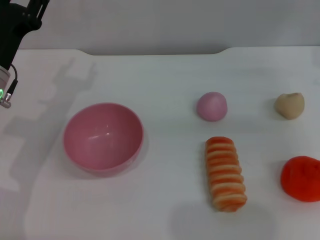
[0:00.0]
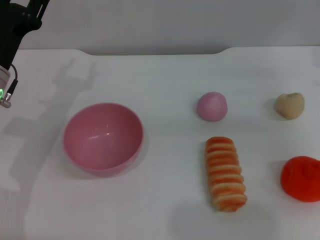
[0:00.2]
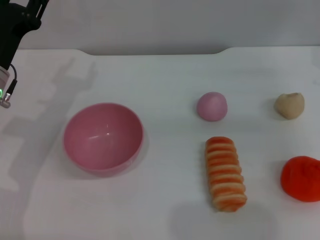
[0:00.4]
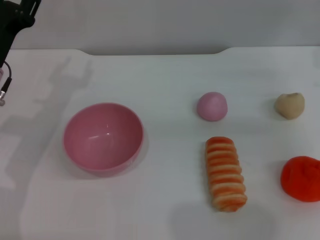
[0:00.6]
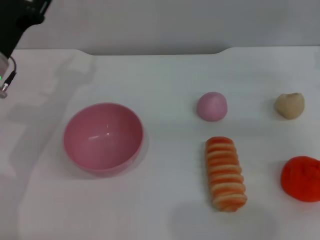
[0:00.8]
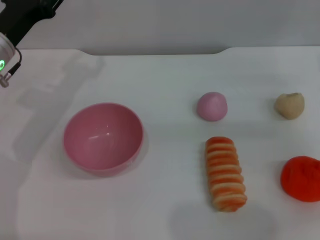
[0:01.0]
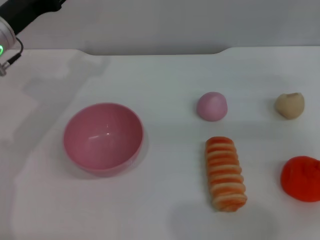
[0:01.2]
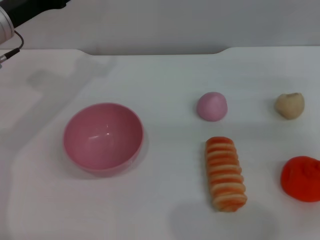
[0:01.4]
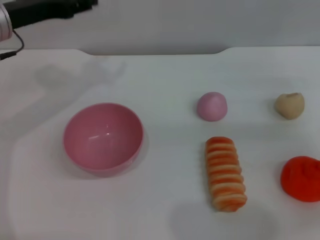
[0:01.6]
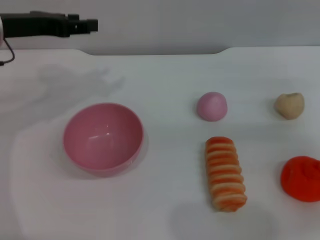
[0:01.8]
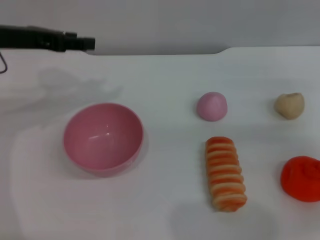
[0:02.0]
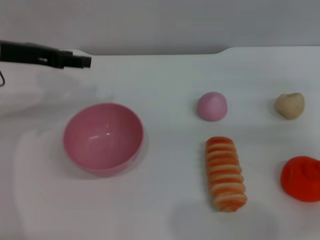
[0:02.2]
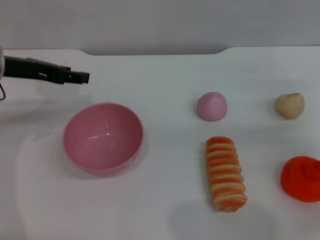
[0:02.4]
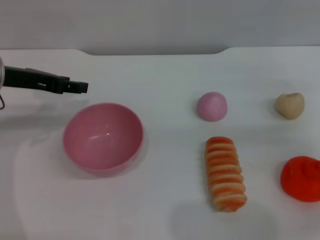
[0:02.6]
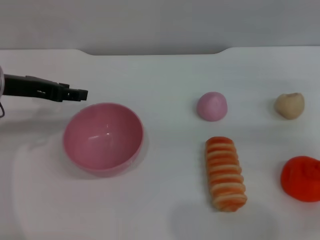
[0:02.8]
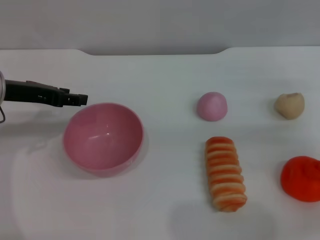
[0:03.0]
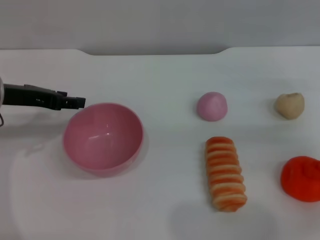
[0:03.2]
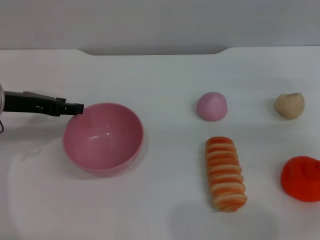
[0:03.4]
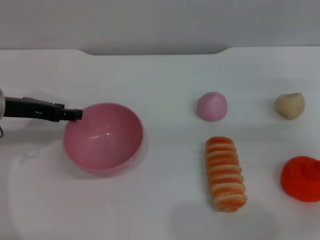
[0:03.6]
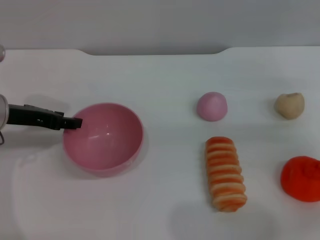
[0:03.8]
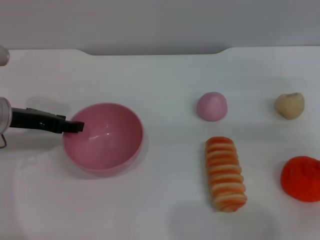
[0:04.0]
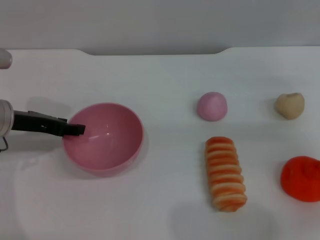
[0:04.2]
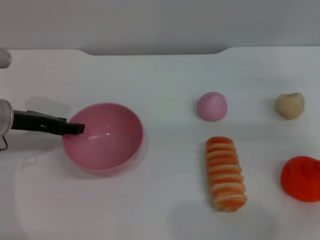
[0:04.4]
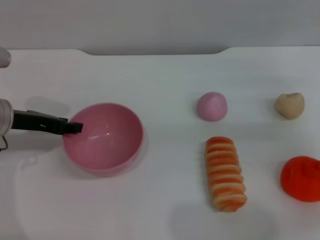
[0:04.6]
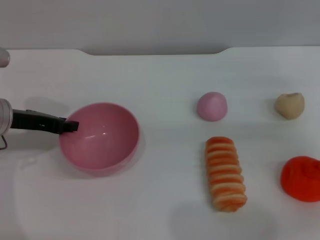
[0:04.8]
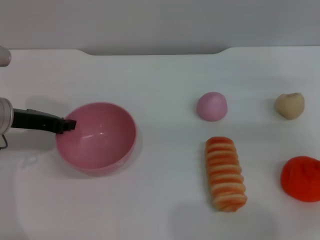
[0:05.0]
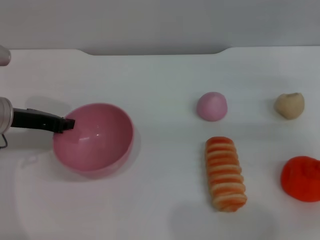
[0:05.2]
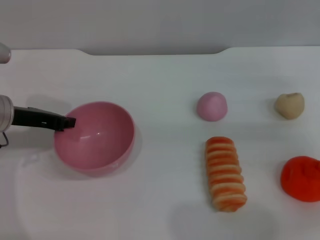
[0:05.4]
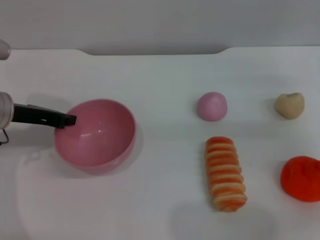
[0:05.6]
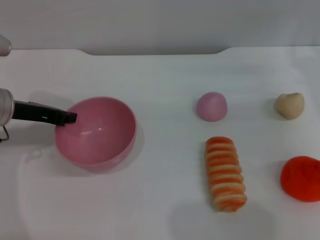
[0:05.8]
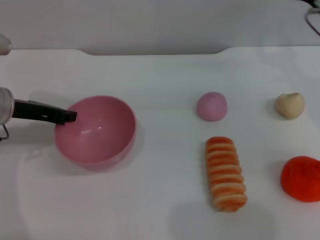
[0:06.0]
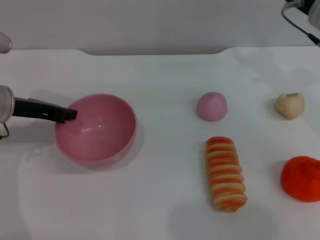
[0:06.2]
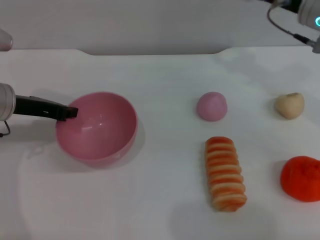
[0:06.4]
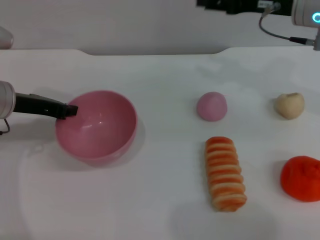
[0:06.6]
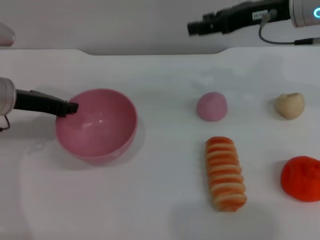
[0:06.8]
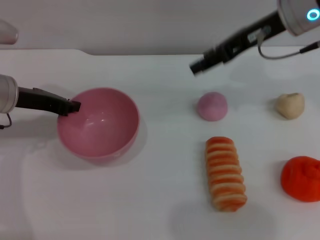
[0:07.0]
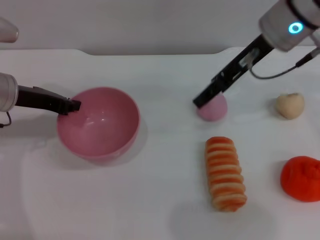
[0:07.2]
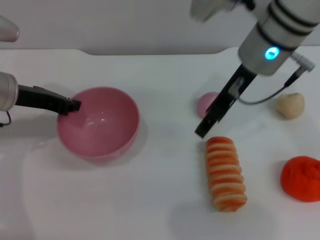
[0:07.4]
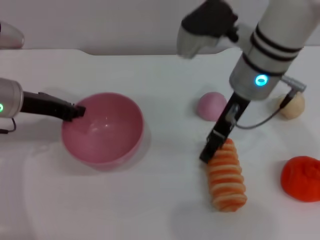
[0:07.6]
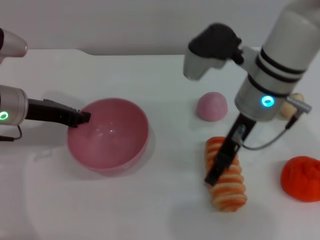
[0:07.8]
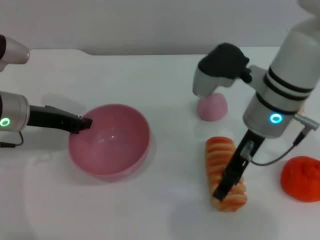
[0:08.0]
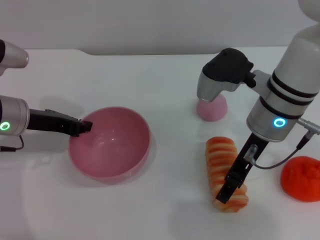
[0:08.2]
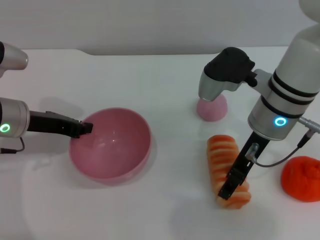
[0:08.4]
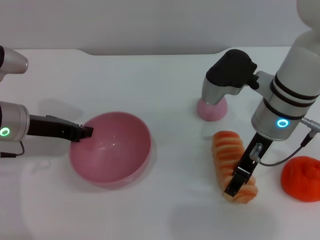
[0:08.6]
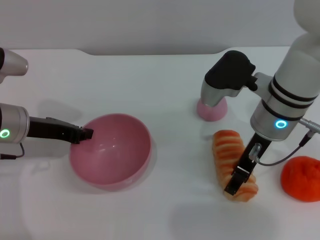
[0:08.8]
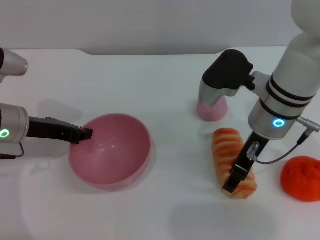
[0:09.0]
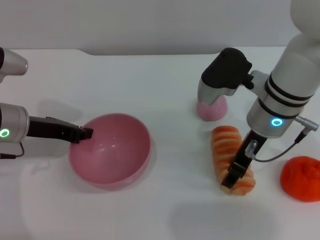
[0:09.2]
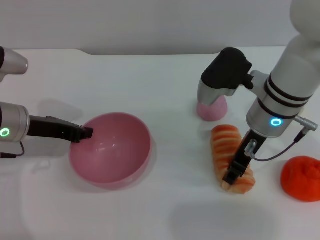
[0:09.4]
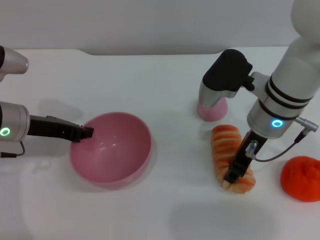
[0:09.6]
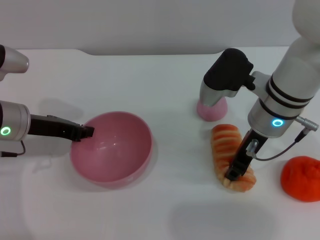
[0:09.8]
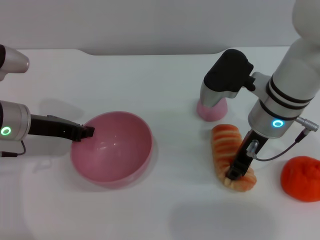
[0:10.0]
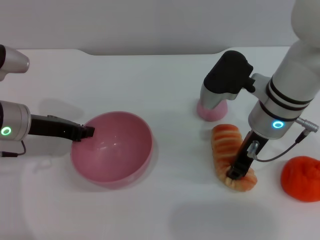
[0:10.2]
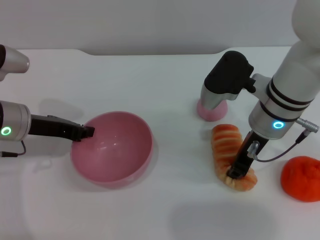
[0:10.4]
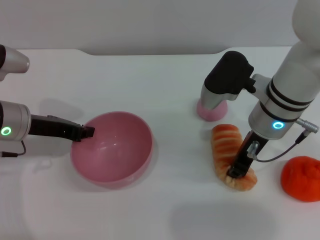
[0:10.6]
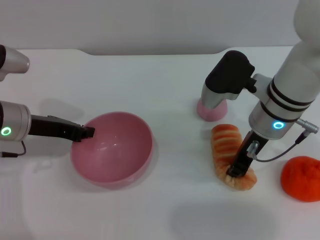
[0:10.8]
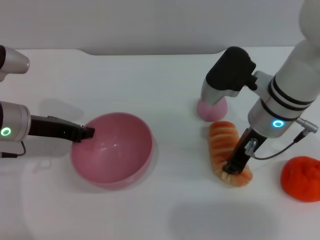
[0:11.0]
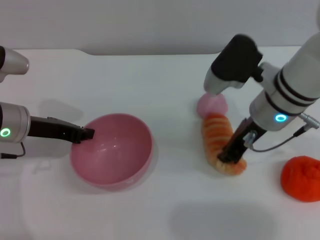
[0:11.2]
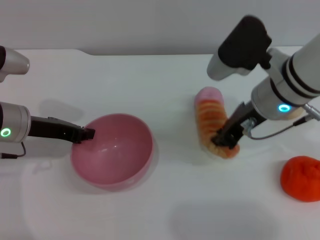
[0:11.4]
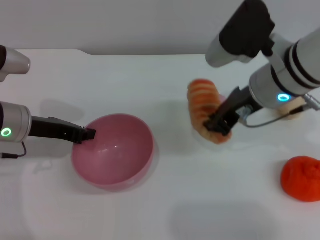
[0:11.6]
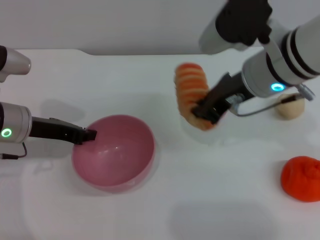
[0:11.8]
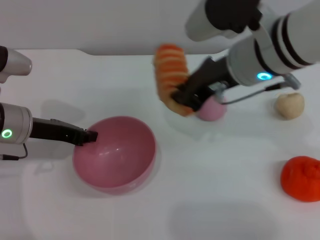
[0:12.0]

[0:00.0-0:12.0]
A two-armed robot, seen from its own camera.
Task of the whole recording: put the bread into the pink bowl and pour it out repeatedly.
Step, 0.0 to 6.0 s: Pick up the bowl with the left gripper.
Step, 6.2 to 11.6 s: Pick up the bread with the right gripper.
0.0 to 1.6 s: The left gripper moves upward and forward, about 10 cm.
1.6 to 3.0 s: The left gripper shifts by about 5 cm.
3.0 to 4.4 s: The grippers move only a little.
4.4 to 6.0 s: The left gripper closes. Meanwhile the right gripper goes about 10 cm to the left, forward and upward.
6.0 to 7.6 s: The right gripper moves to the left, some 15 cm.
7.6 to 9.0 s: The right gripper goes some 5 cm downward.
9.0 to 10.4 s: The right gripper closes.
10.4 to 12.0 s: The right gripper moves upward, about 10 cm.

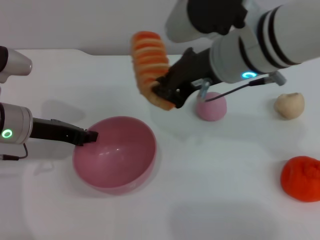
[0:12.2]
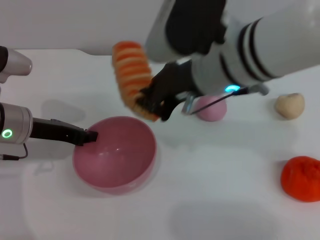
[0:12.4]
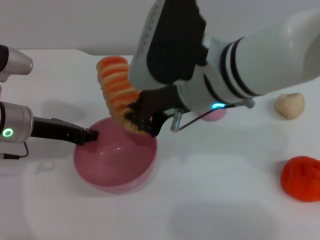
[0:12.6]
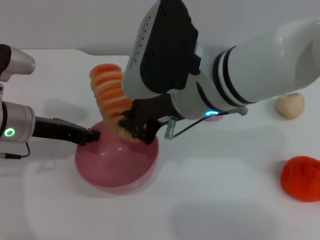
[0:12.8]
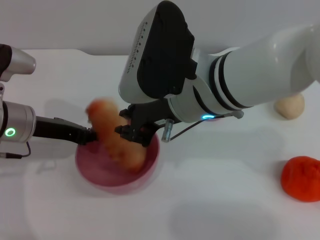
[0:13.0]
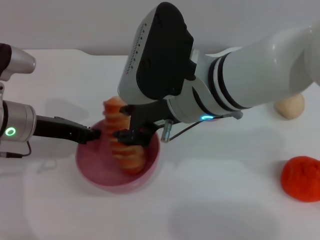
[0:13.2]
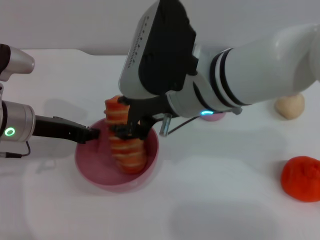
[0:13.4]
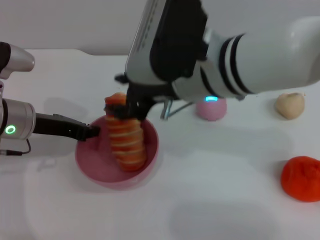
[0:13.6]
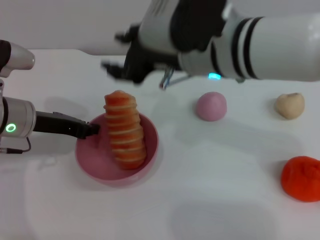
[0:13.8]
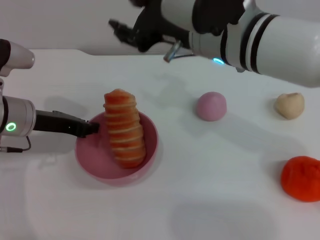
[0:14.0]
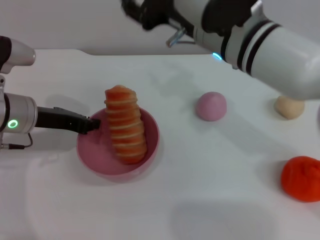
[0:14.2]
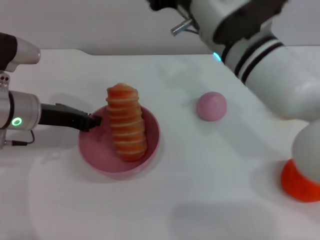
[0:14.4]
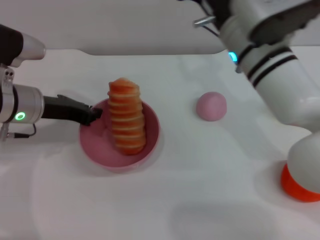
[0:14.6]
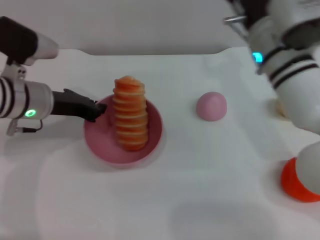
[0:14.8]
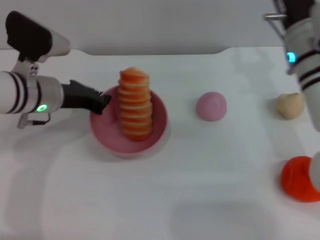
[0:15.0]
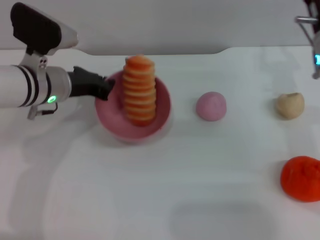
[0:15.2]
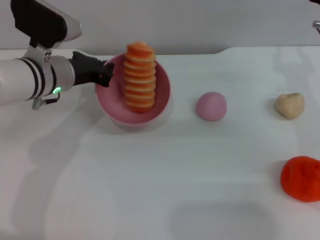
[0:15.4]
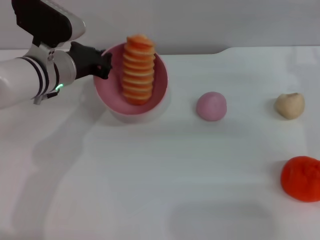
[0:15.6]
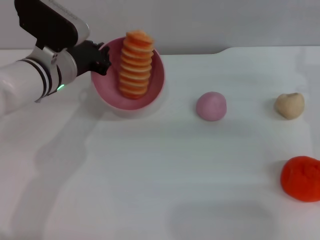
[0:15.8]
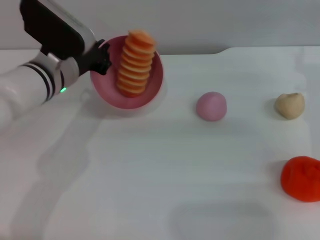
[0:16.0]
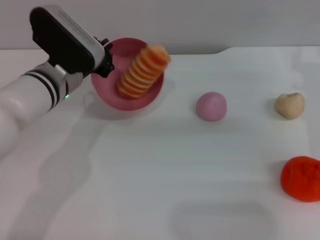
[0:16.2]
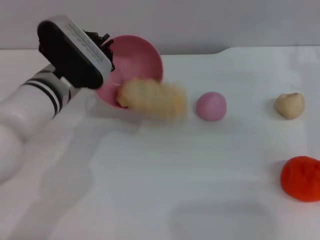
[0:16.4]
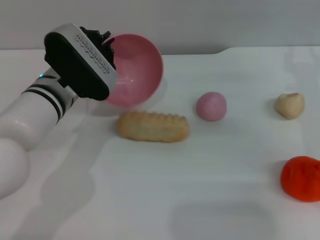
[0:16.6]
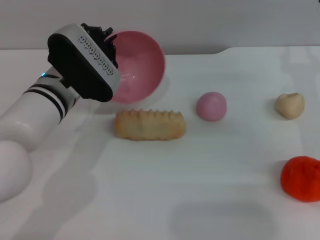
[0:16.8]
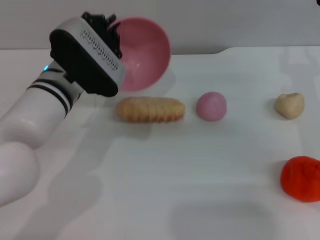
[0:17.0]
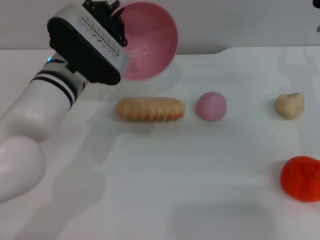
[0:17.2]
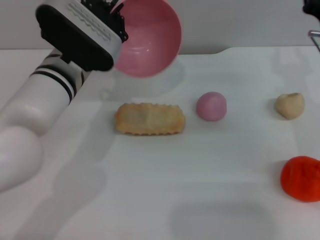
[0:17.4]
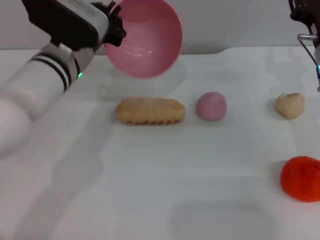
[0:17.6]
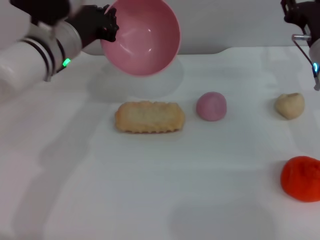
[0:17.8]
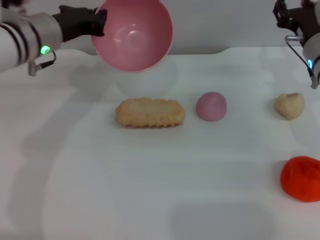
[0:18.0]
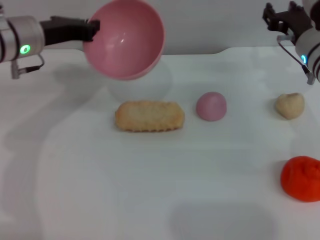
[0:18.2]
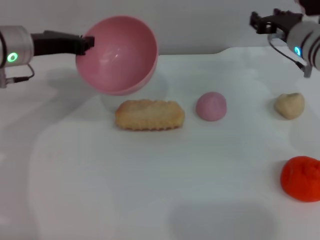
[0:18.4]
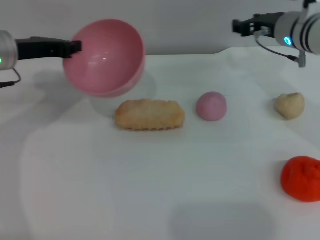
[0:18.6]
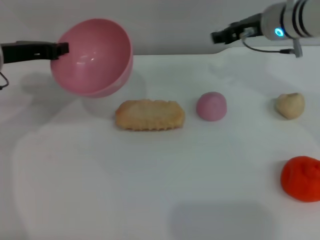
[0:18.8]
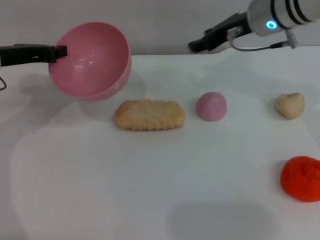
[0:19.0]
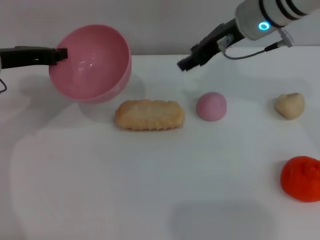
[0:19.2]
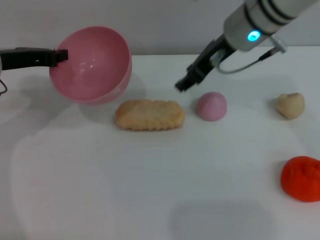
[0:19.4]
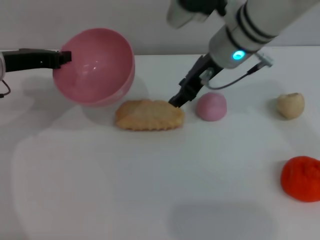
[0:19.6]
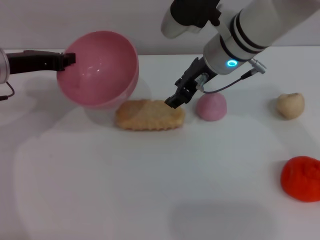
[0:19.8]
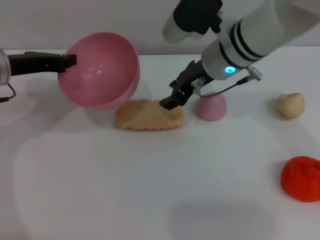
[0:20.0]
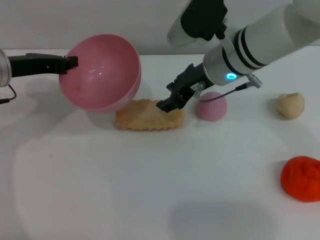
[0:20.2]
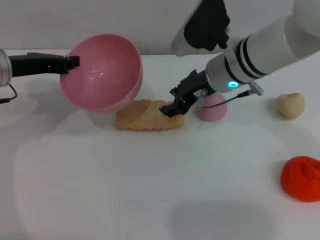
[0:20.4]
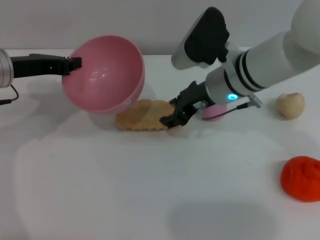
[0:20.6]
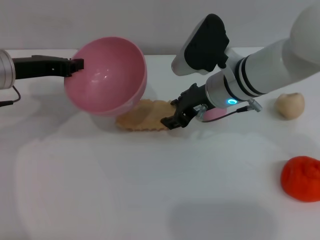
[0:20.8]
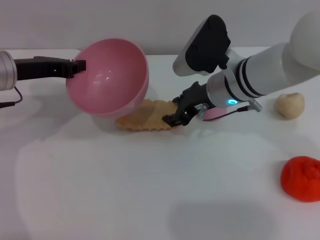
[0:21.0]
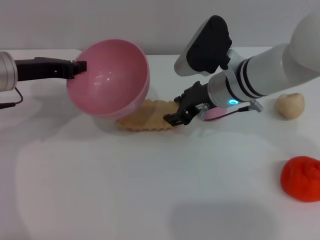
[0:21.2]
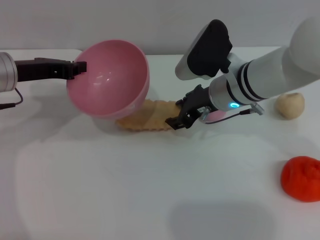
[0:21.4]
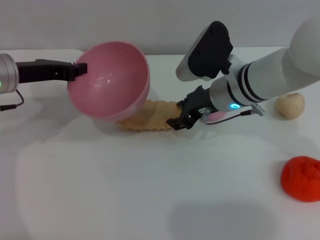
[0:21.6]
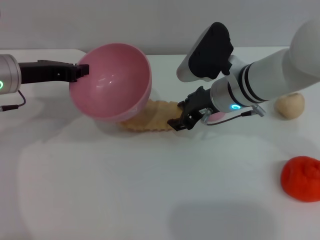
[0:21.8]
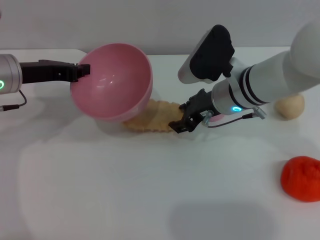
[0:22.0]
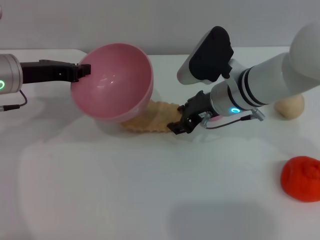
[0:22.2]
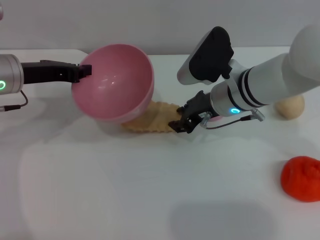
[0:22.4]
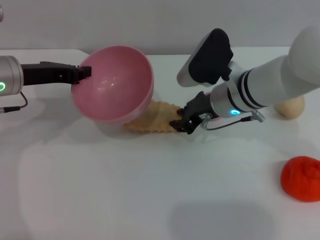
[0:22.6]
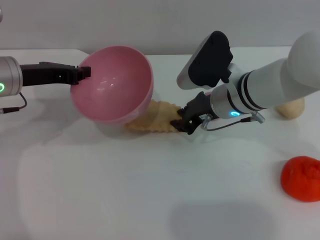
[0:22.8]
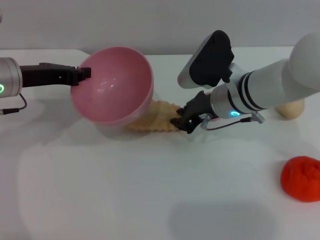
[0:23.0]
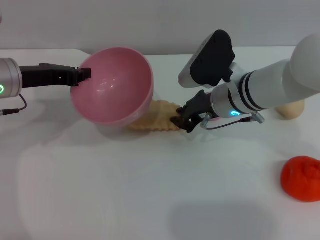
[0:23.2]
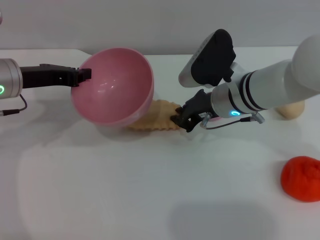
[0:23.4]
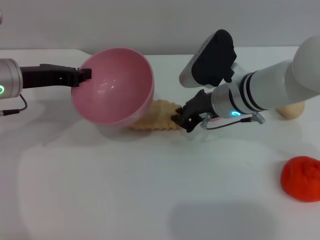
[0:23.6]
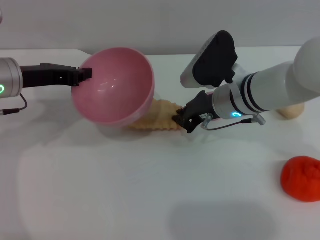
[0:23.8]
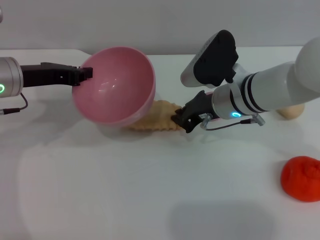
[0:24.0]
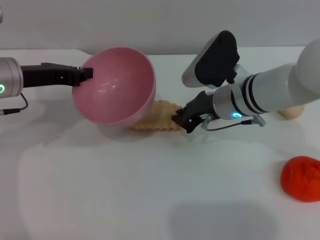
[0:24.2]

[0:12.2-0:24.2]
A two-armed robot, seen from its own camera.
Task of the whole recording: put the bread into the pink bowl and pour it out repeatedly.
Step, 12.2 to 14.2 s: Place the bread into the bowl.
Step, 14.4 to 17.6 s: Pour the bread out of the bowl.
12.2 to 13.8 s: The right gripper opens its fingers.
13.8 to 15.2 s: The right gripper goes some 20 cm to the right and downward; the left gripper is displaced to the right by roughly 5 cm.
15.2 to 16.6 s: The left gripper ends up approximately 5 cm from where it was.
16.6 to 18.2 s: The right gripper moves forward, approximately 5 cm; the left gripper is displaced to the left, forward and upward by about 10 cm.
18.2 to 19.8 s: The left gripper ends up about 5 cm from where it was. The right gripper travels to the left and upward by approximately 15 cm.
19.8 to 21.2 s: The right gripper heads downward, covering some 5 cm.
21.2 to 22.6 s: The grippers stay close to where they were, moving slightly.
22.6 to 24.2 s: The right gripper closes.
